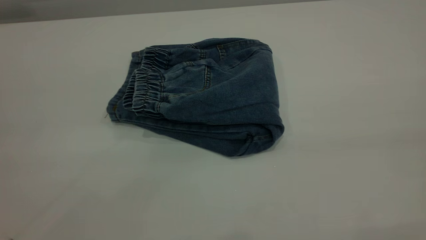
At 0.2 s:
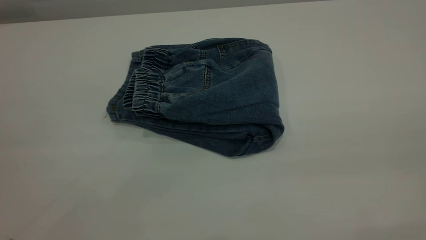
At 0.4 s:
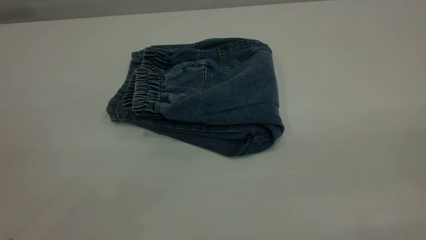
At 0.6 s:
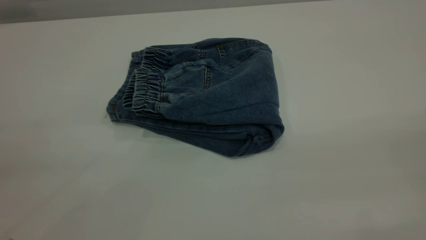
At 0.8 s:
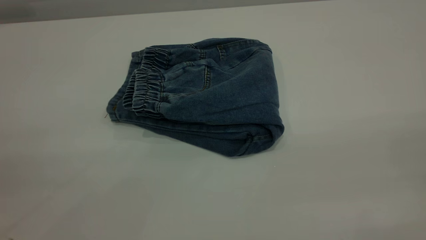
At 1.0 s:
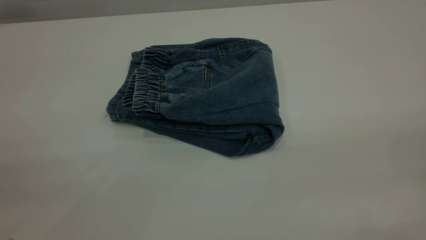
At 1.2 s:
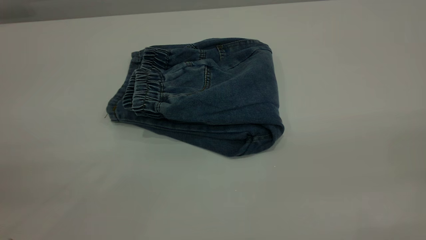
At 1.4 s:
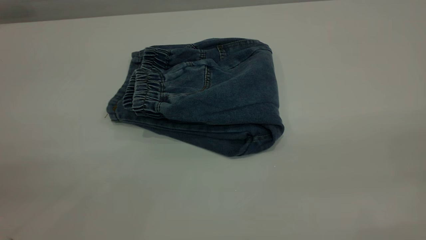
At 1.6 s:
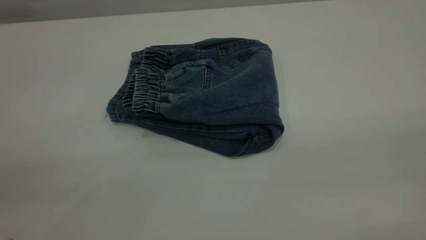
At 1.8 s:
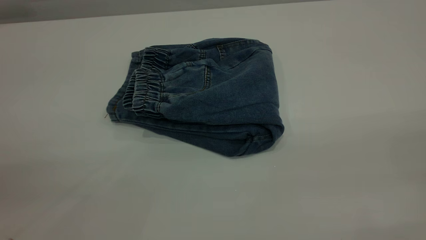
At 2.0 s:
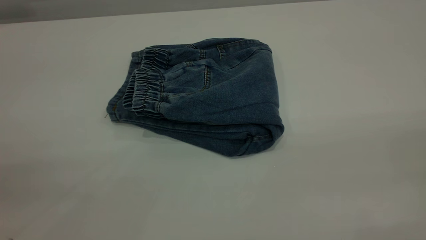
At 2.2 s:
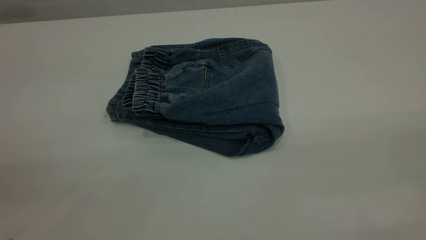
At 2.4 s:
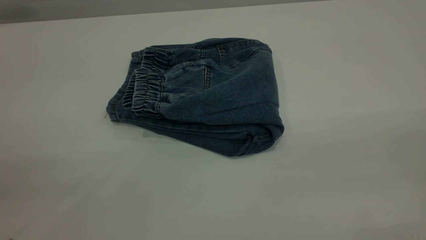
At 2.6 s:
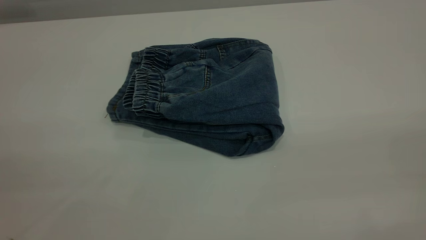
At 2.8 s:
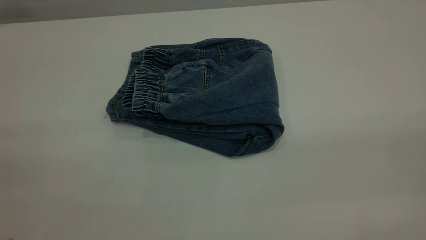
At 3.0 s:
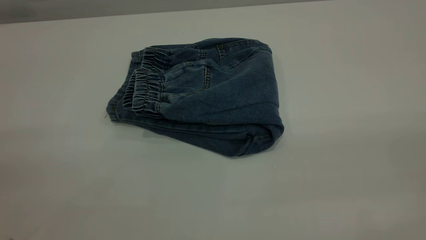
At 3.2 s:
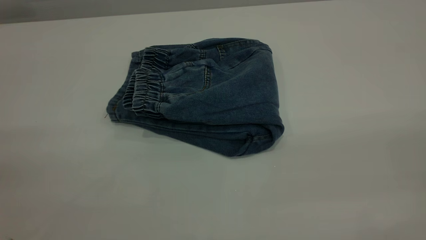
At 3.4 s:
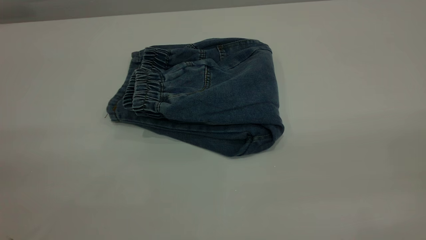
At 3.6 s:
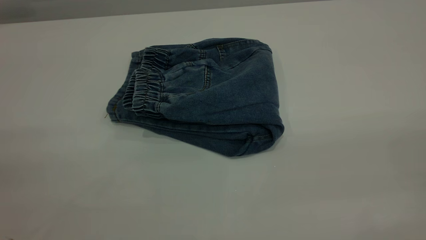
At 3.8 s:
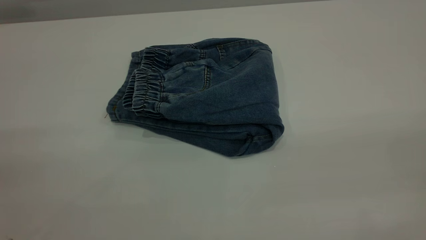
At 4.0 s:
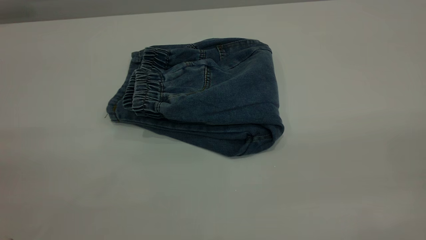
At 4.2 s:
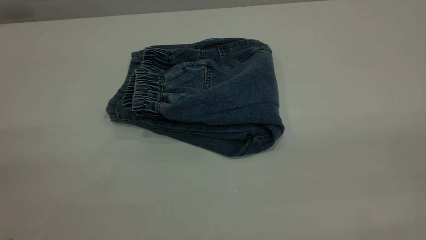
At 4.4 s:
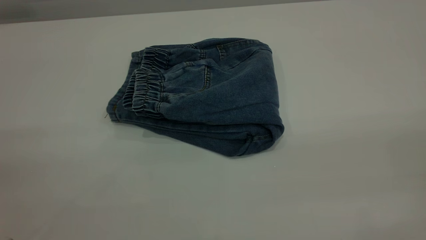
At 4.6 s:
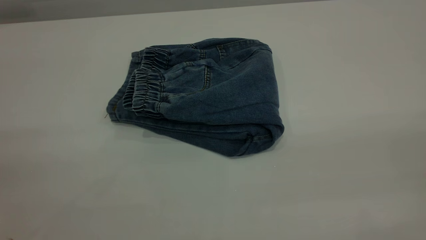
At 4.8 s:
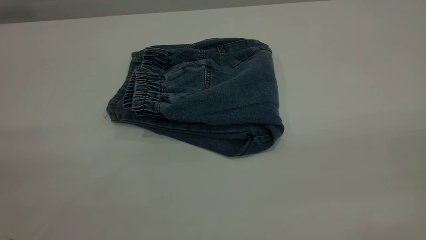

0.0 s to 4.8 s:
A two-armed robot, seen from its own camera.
3.2 to 4.8 s: The two grippers keep their place.

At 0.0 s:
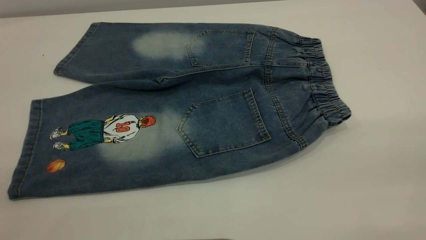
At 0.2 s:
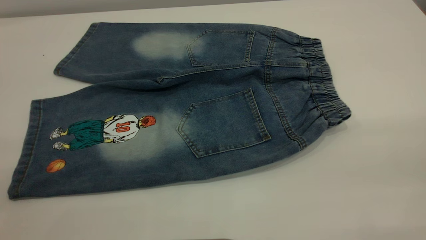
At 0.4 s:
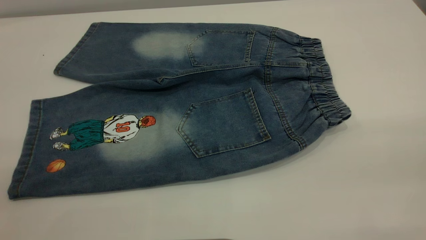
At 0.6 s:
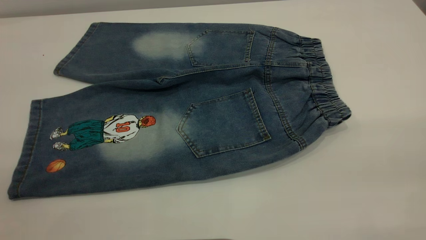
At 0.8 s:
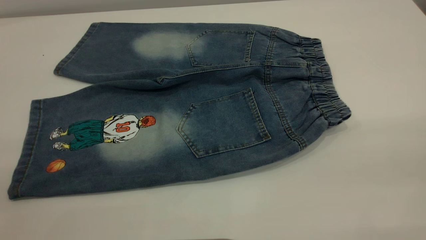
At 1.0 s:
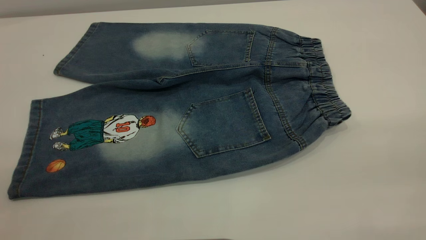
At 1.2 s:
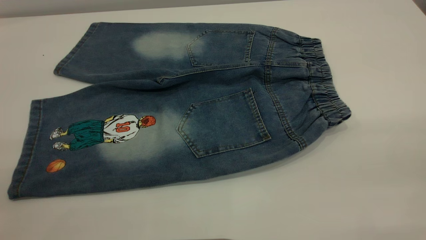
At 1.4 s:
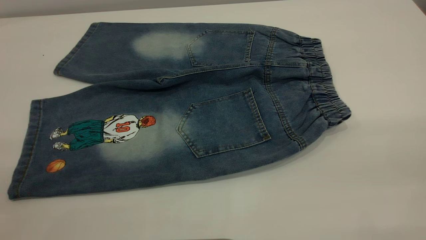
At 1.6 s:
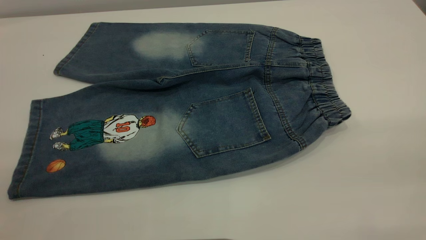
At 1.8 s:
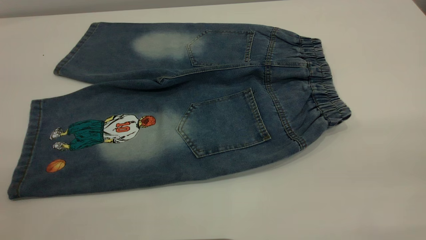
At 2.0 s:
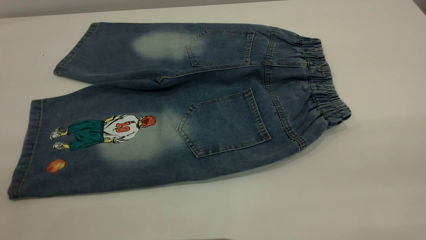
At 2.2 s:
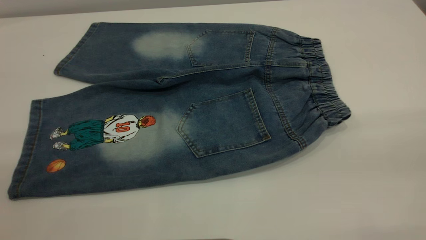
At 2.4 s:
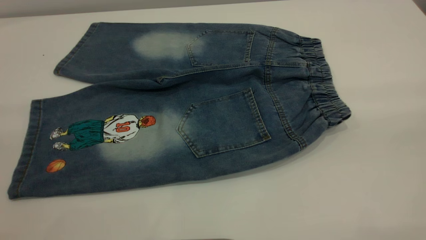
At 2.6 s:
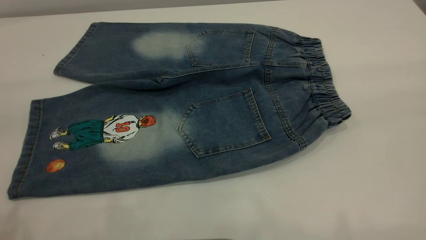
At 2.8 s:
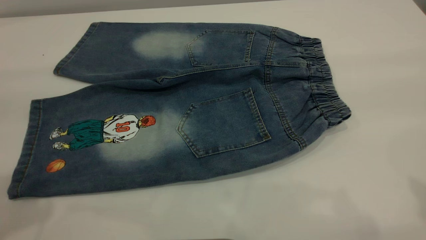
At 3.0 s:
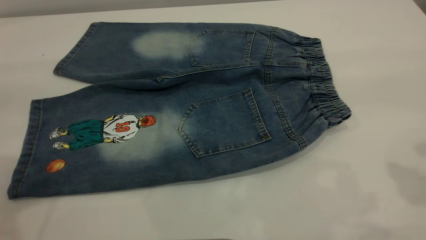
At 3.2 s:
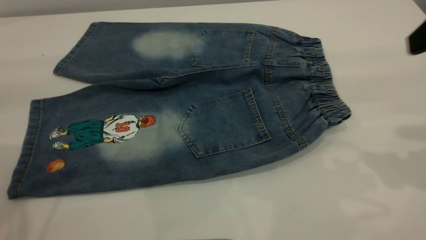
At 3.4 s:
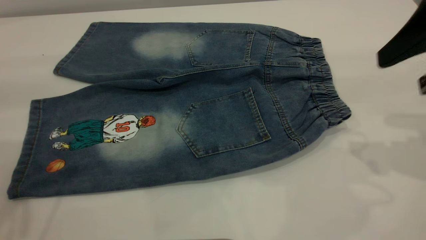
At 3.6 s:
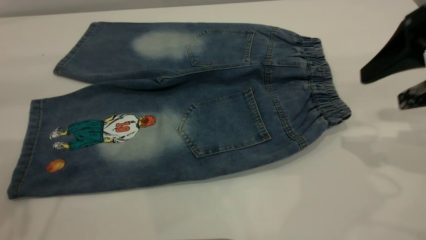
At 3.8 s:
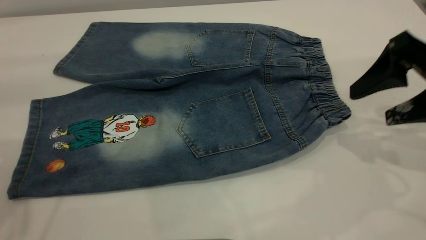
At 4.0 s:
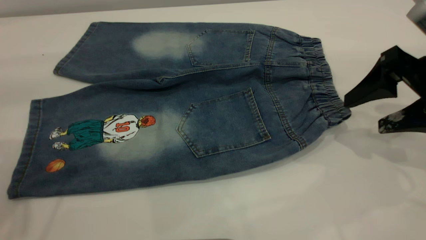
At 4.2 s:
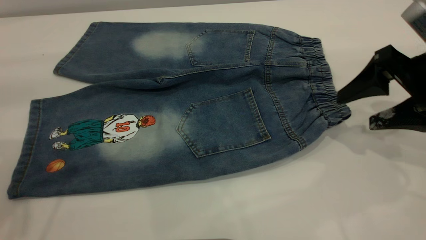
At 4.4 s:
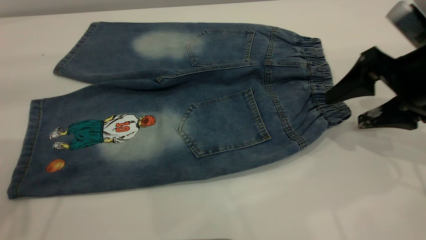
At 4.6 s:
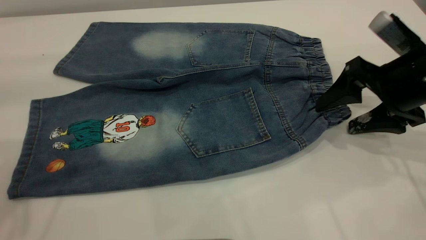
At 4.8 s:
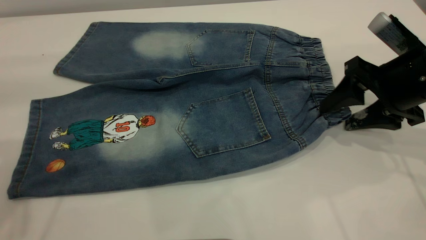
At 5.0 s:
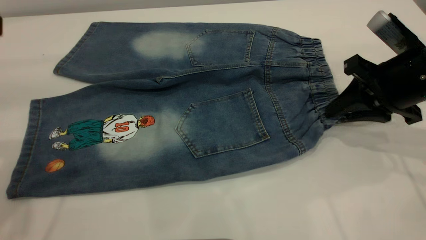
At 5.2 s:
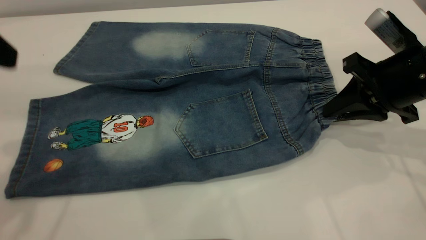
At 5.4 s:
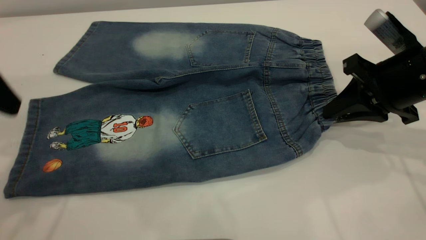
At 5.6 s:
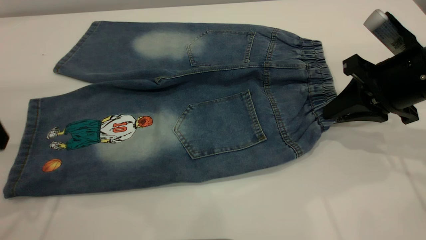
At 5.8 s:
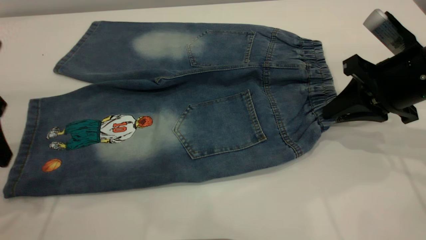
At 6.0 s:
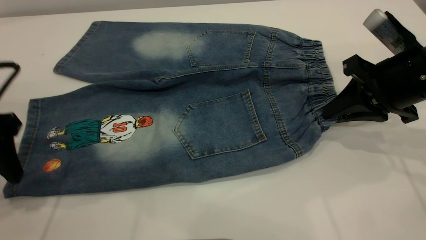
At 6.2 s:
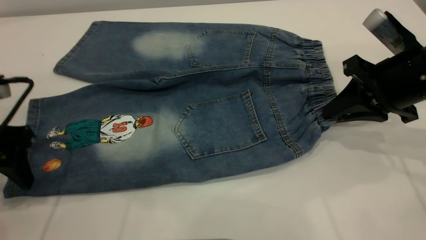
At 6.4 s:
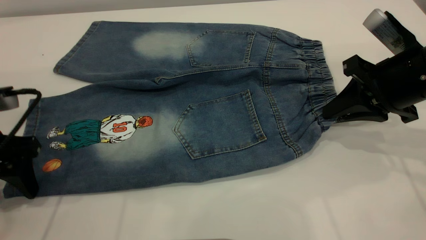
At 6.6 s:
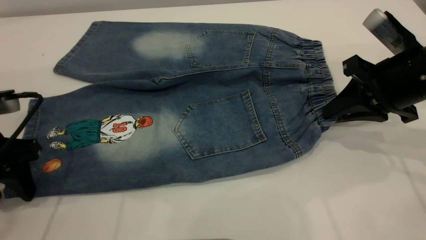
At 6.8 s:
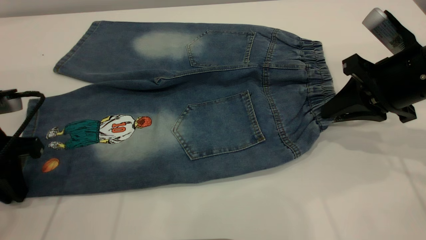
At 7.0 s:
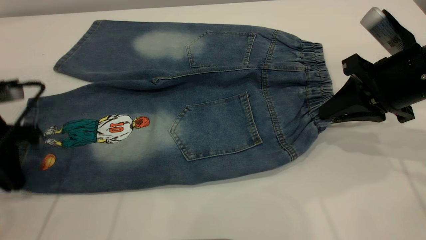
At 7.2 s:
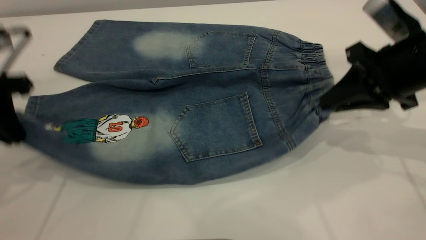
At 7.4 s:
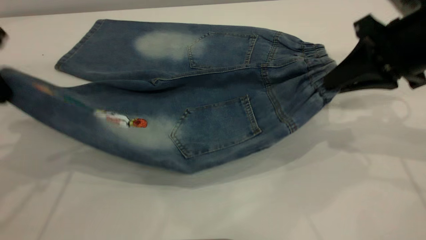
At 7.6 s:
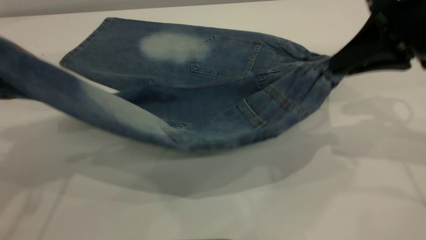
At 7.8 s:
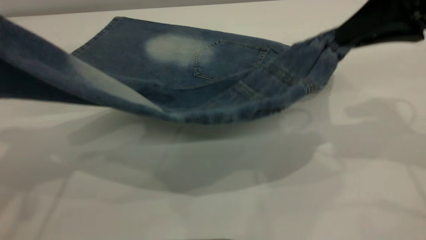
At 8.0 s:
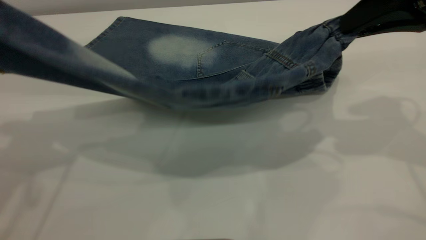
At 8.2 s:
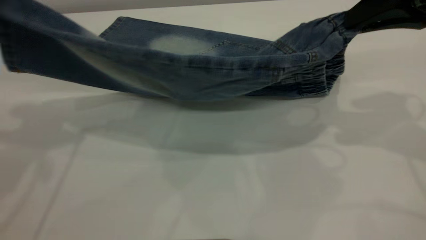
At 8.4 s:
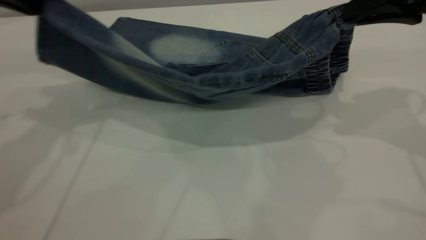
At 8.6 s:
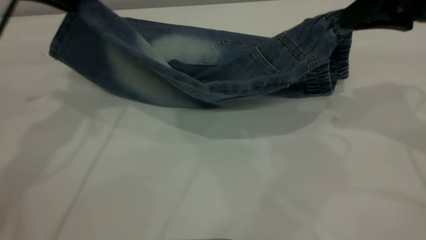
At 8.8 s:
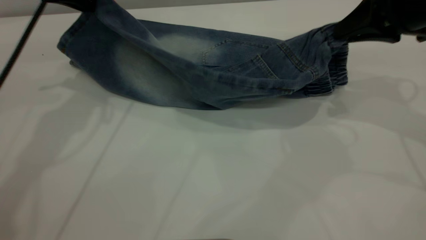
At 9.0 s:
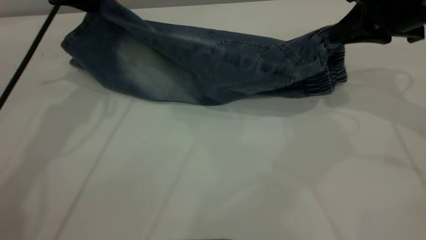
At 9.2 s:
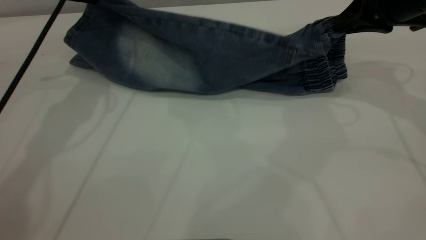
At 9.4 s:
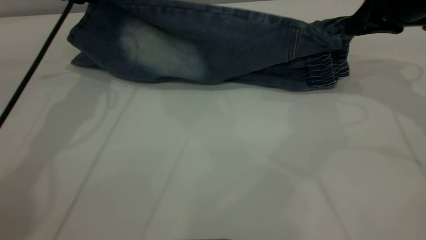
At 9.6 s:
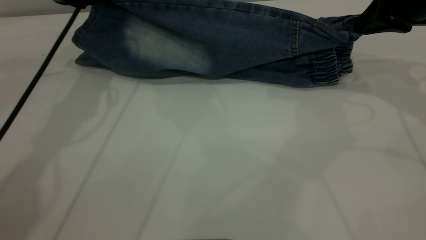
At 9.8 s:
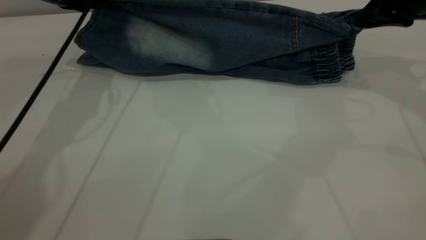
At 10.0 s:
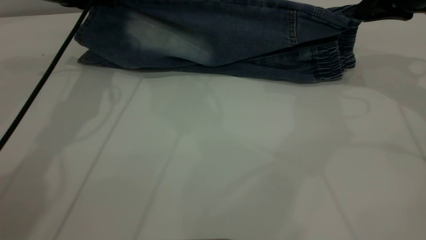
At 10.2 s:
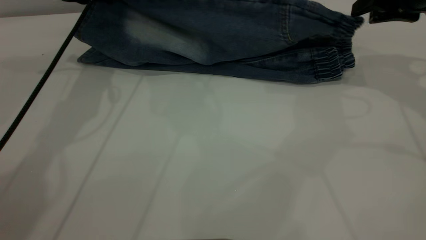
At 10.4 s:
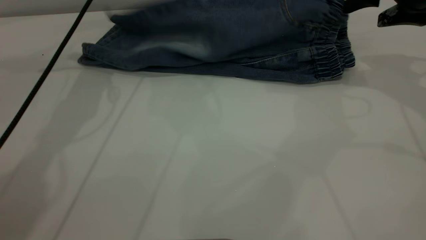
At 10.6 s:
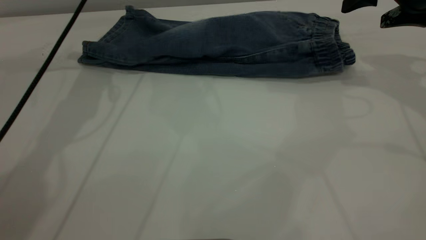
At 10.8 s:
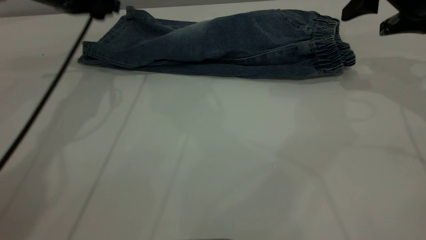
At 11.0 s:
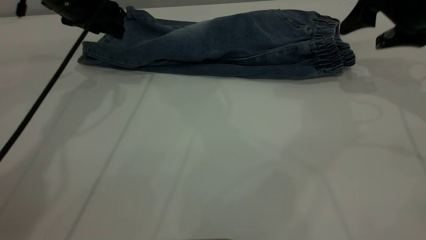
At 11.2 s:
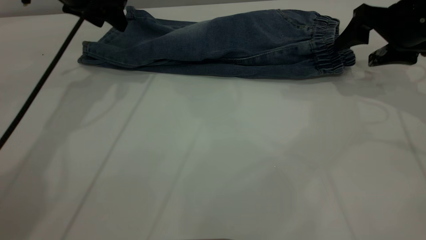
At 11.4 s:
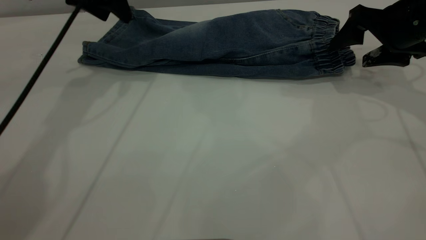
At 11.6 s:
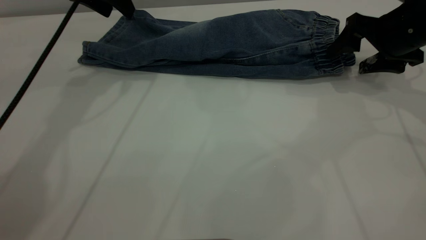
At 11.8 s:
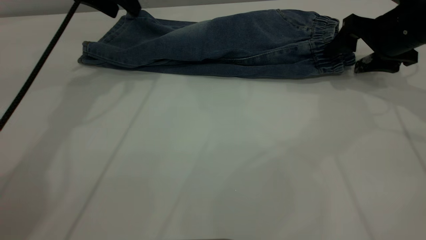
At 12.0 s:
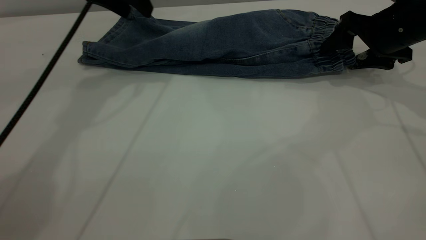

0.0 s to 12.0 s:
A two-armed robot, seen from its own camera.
Step, 0.0 to 10.4 s: Fold the bottom of the pants upward.
0.0 to 1.6 s: Both grippers stay put.
3.0 to 4.4 s: The right gripper goes about 20 cm downward and forward.
4.4 to 6.0 s: The right gripper closes. Meanwhile the left gripper travels downward by roughly 15 cm.
6.0 to 7.6 s: The two grippers go some 10 cm upward. The left gripper closes.
7.6 to 9.0 s: The right gripper heads forward, covering some 5 cm. The left gripper goes approximately 20 cm forward and downward.
9.0 to 10.4 s: The right gripper opens up, while the left gripper opens its fingers.
10.4 to 12.0 s: The right gripper travels downward by about 10 cm. The left gripper moves to the right, roughly 5 cm.
